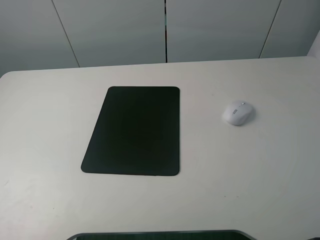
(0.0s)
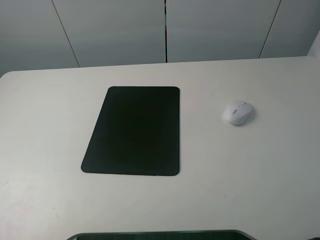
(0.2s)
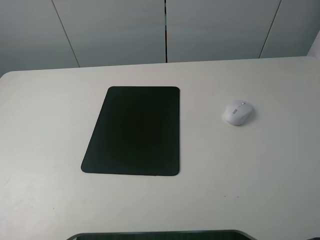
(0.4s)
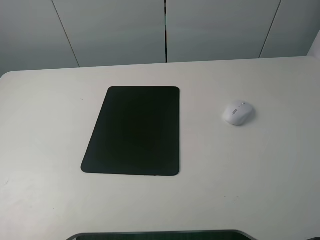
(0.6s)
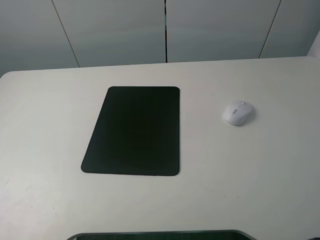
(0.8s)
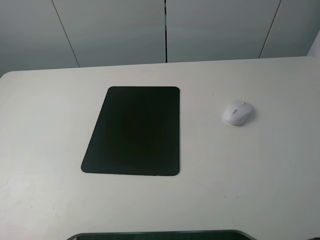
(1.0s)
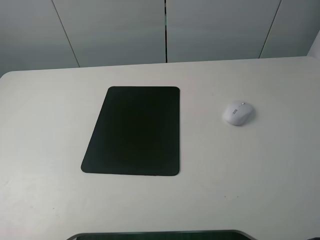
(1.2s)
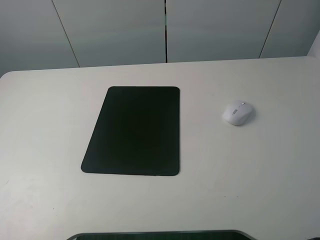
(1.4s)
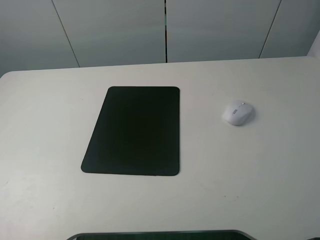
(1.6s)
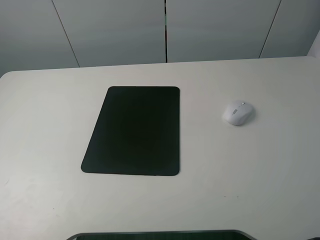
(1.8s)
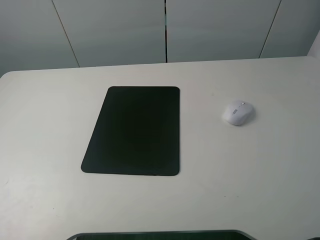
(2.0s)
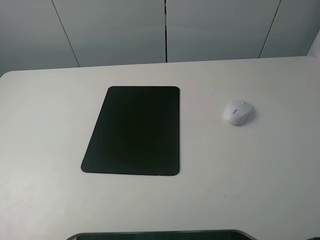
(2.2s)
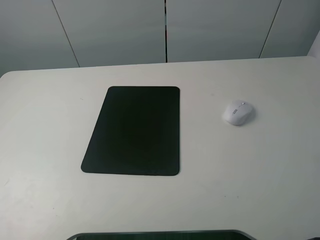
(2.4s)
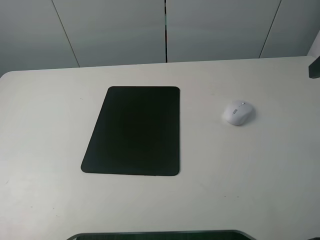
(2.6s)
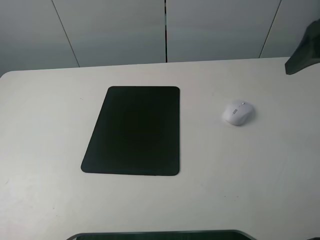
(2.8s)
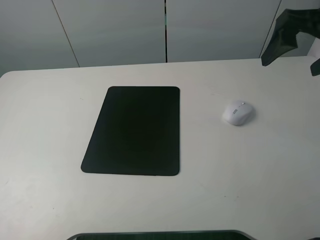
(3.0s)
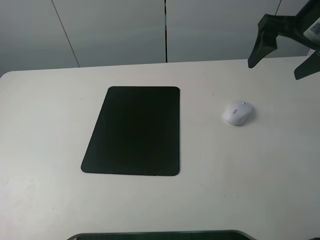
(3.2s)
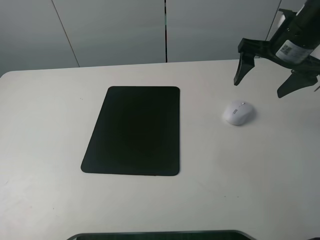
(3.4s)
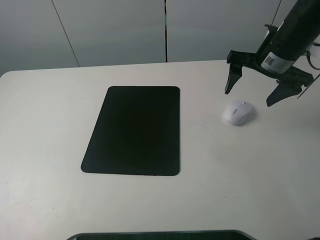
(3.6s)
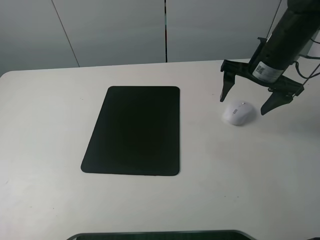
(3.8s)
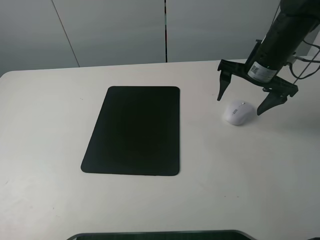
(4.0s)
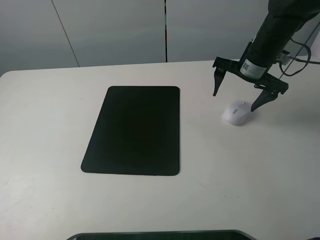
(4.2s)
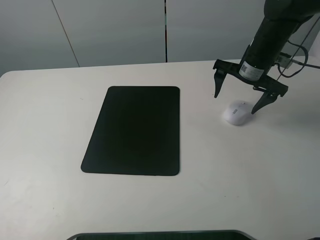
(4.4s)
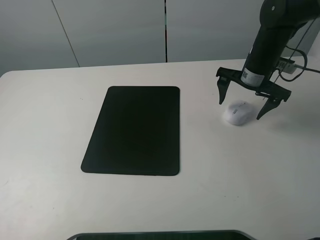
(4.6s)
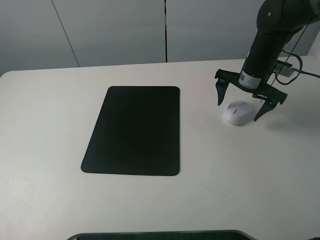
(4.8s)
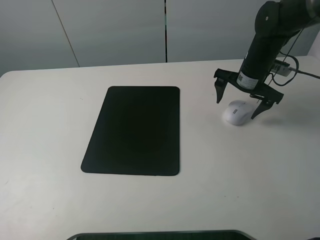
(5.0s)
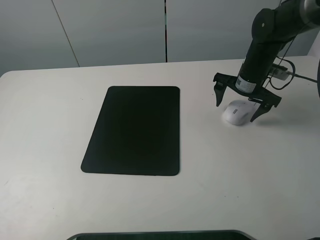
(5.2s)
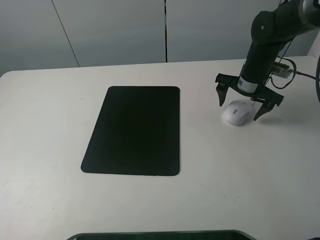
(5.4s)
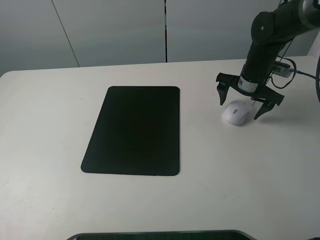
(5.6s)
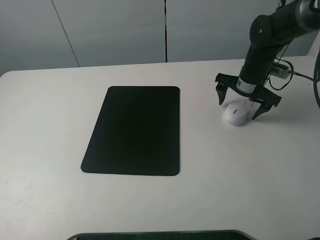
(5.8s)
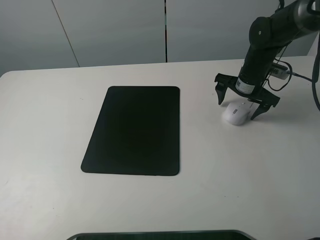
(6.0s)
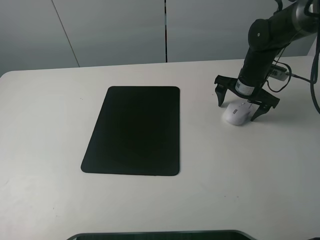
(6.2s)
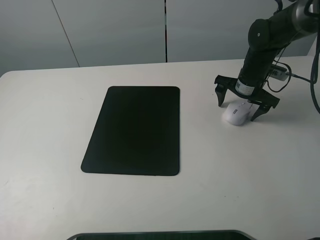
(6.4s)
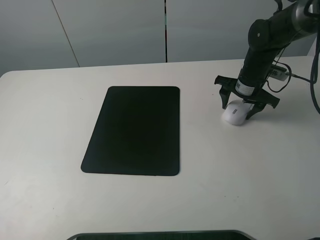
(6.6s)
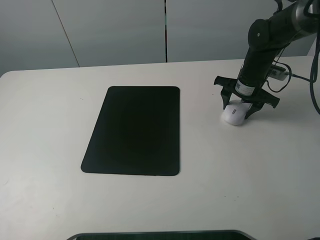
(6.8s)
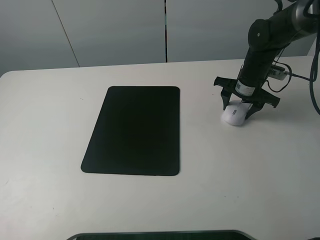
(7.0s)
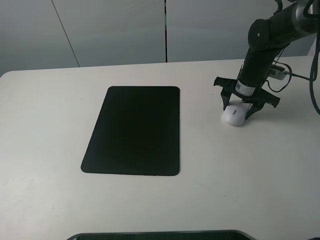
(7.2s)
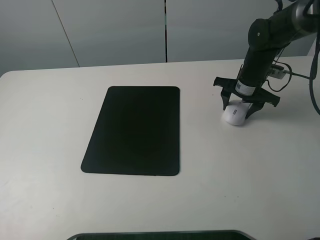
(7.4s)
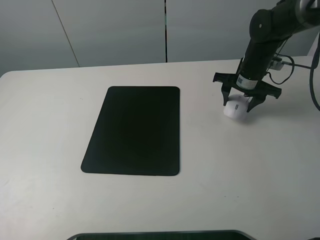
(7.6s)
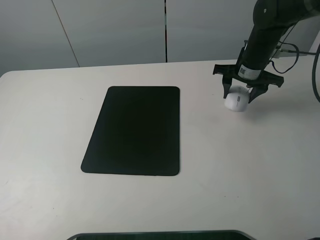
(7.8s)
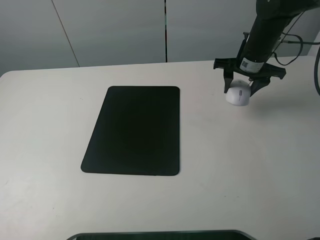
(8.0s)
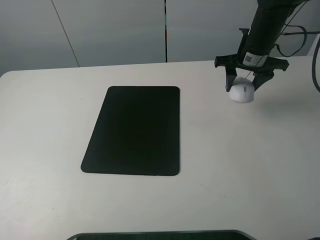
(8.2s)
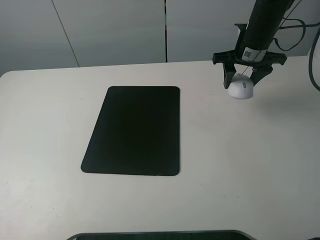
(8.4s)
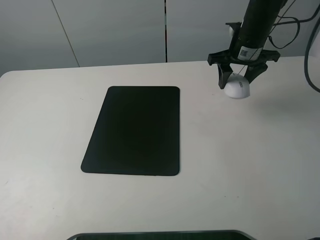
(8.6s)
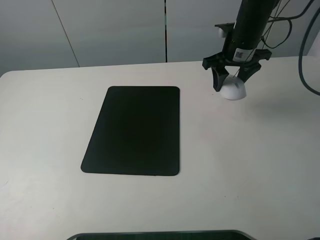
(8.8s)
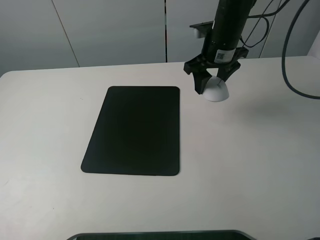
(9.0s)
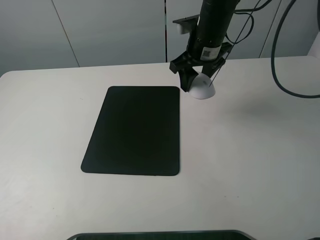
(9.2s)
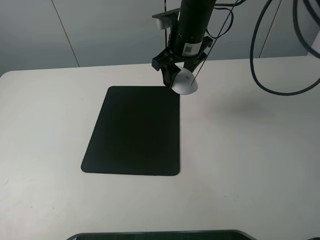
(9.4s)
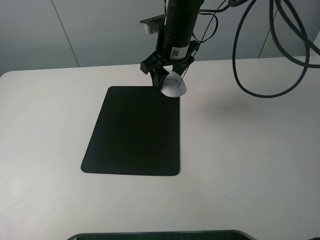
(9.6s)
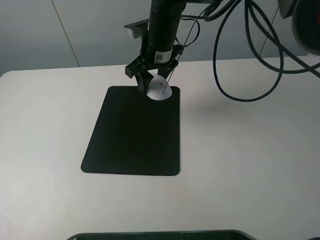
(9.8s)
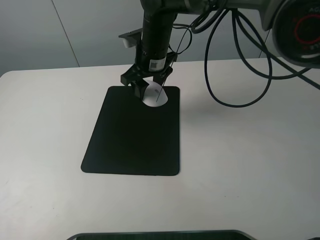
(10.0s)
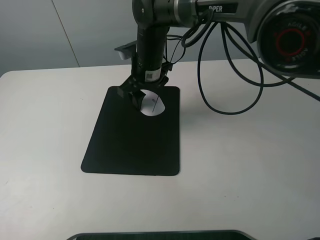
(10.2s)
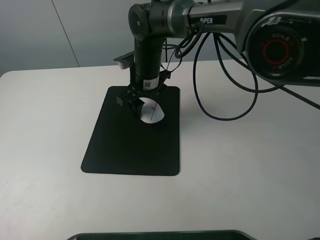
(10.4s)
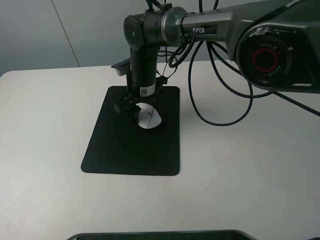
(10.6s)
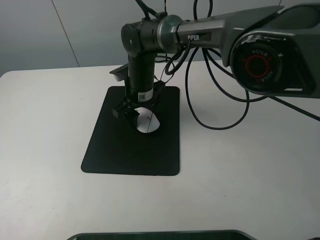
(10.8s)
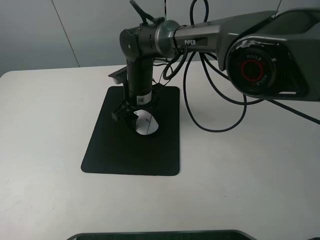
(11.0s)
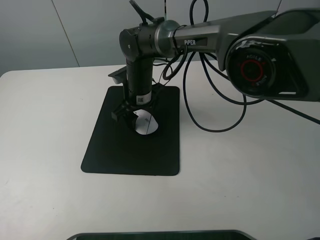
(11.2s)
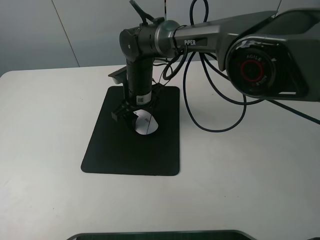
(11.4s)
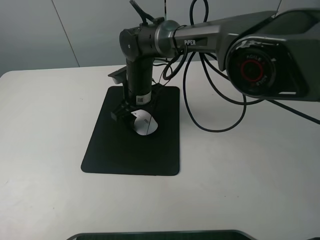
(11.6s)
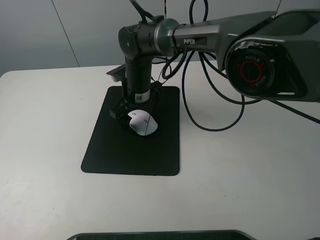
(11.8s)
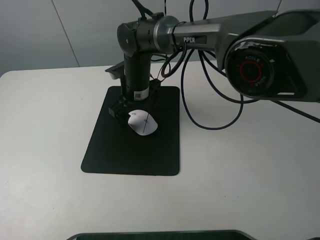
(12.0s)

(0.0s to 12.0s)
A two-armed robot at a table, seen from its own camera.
Step, 0.0s - 7.4s: Grasp the mouse with the right gripper.
Step, 7.6s - 11.8s: Place the mouse on the mouse mat with the right gripper.
0.0s - 1.6s: Both grippers stay put.
1.6s - 3.0s: The right gripper shifts roughly 25 cm forward.
3.0s - 4.4s: The right gripper travels downward and forward by approximately 15 cm.
4.4s - 6.0s: The right gripper moves downward, about 5 cm.
6.0s - 7.6s: The right gripper closes its fingers.
7.6s - 9.0s: The right gripper heads to the left and upward, covering roughly 10 cm.
9.0s - 10.4s: The right gripper heads to the left and downward, covering roughly 15 cm.
10.4s - 12.0s: The right gripper opens its fingers.

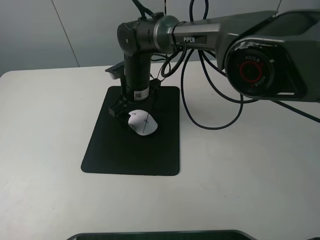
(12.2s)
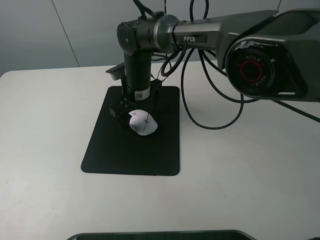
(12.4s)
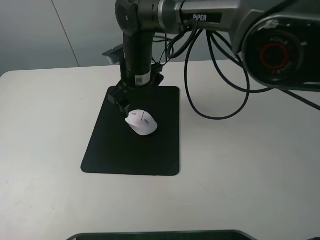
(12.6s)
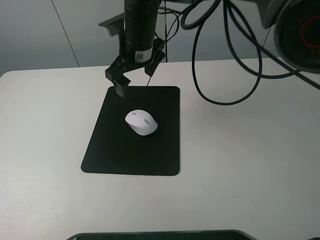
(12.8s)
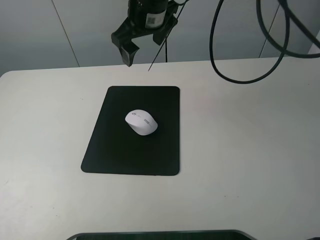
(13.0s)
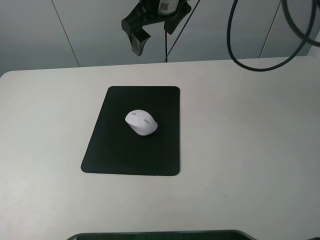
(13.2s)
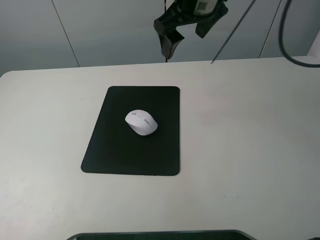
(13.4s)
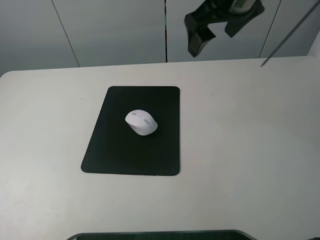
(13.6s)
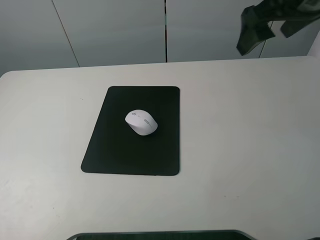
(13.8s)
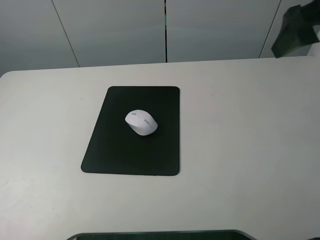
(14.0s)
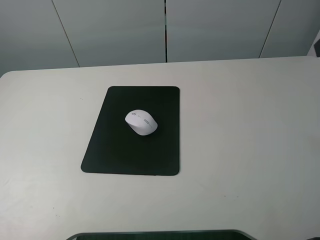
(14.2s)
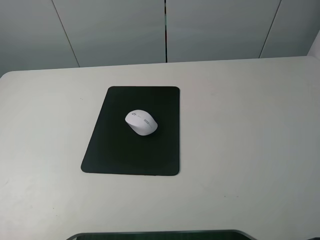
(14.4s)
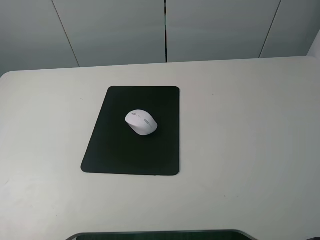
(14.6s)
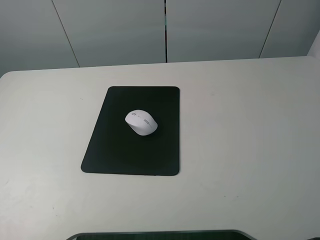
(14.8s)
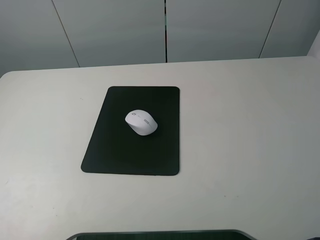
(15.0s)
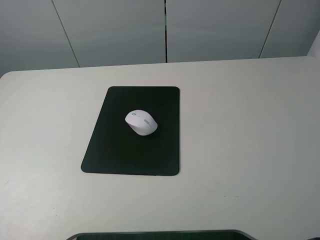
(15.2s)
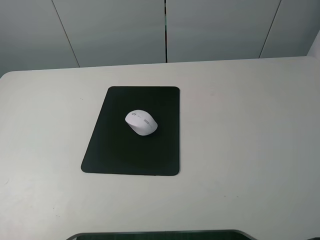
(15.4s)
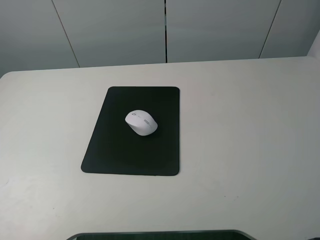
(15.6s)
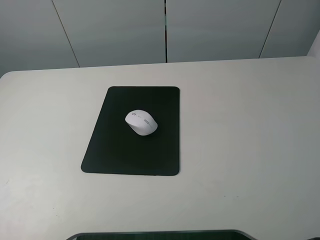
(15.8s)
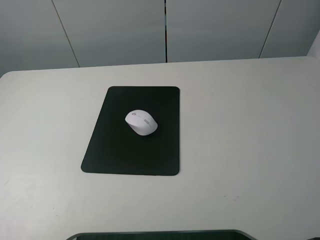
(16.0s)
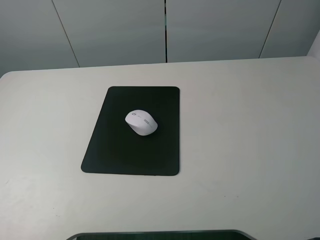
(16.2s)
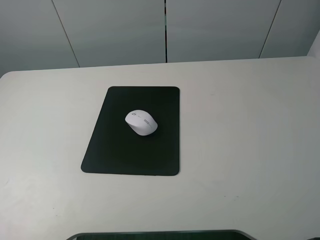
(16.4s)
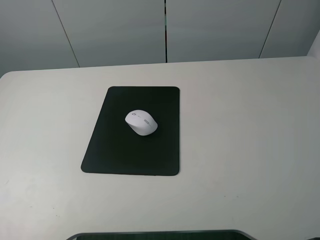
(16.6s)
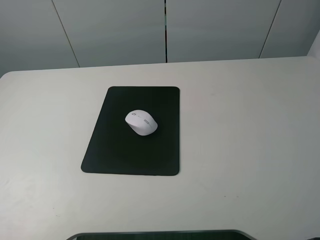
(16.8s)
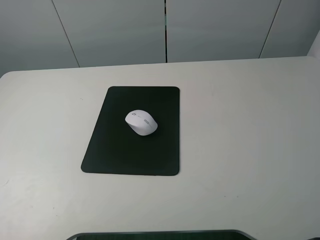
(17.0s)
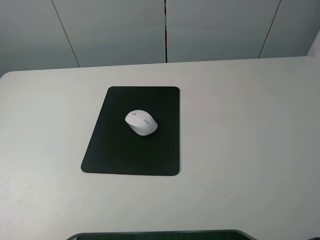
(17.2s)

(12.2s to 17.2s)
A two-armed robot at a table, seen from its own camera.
12.2s - 13.8s: The right gripper heads to the right and upward, covering roughly 35 cm.
13.8s - 15.6s: The right gripper heads backward, covering some 30 cm.
